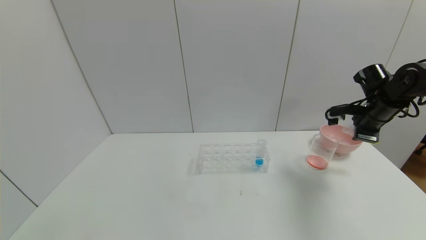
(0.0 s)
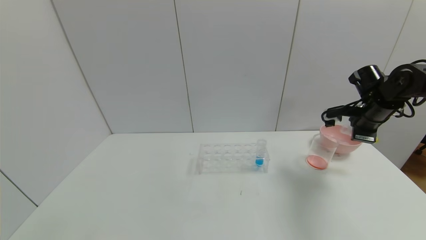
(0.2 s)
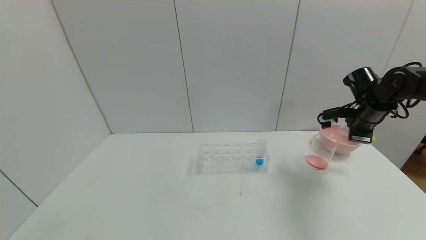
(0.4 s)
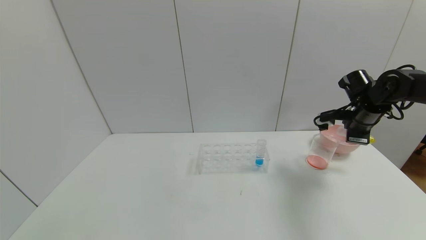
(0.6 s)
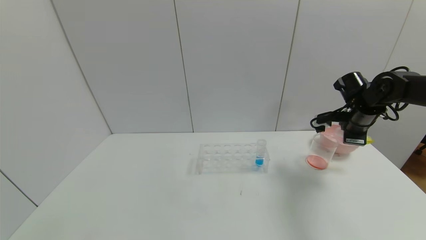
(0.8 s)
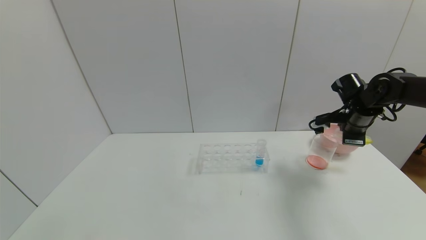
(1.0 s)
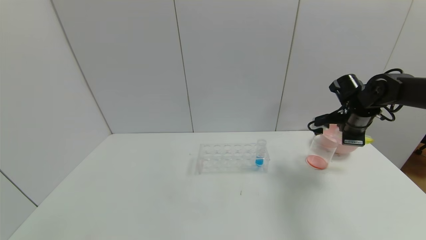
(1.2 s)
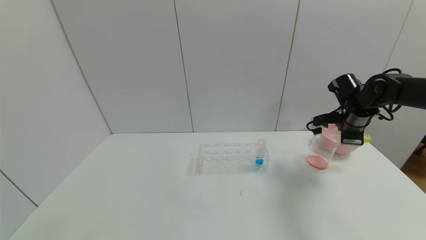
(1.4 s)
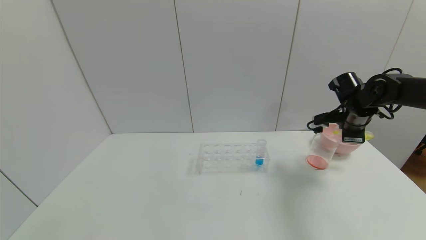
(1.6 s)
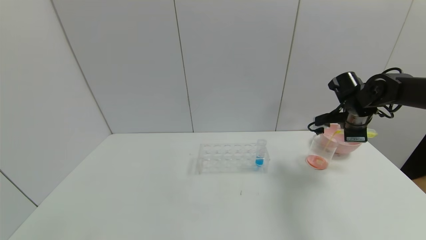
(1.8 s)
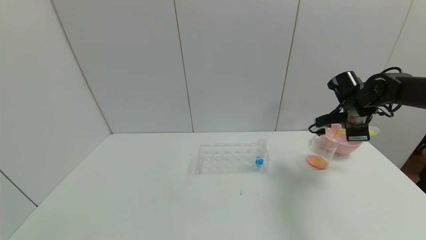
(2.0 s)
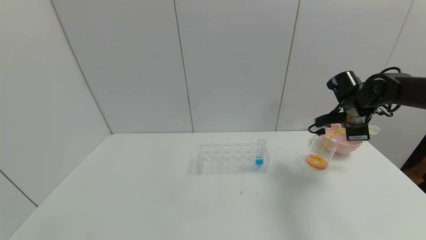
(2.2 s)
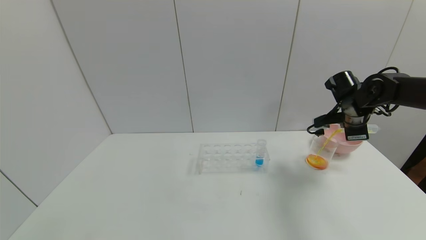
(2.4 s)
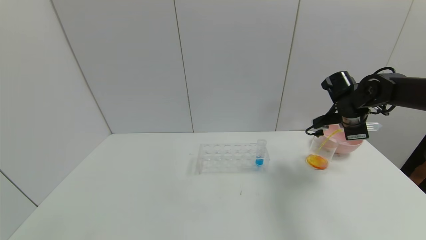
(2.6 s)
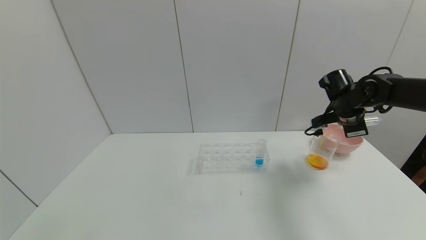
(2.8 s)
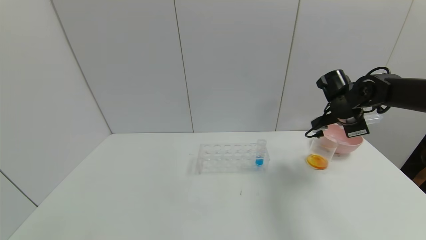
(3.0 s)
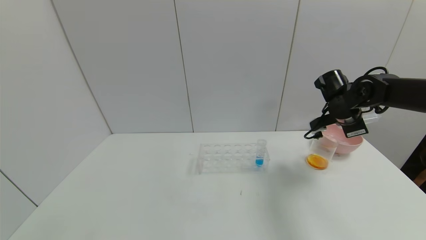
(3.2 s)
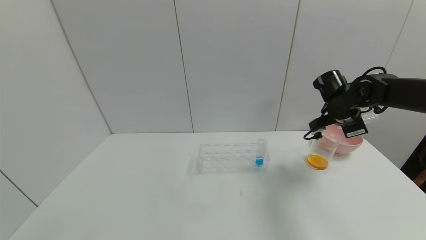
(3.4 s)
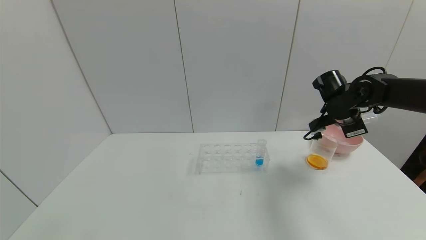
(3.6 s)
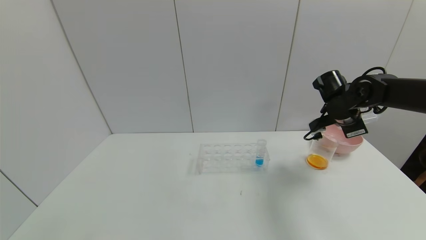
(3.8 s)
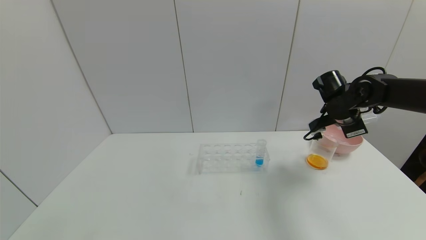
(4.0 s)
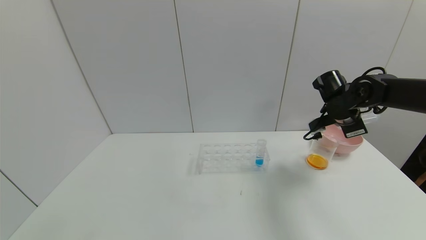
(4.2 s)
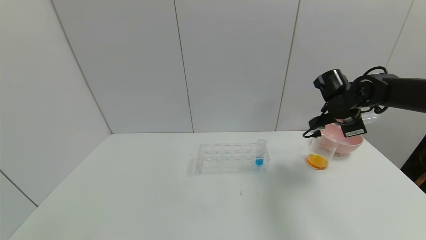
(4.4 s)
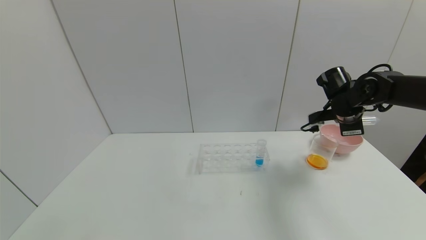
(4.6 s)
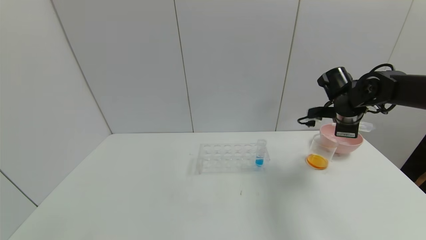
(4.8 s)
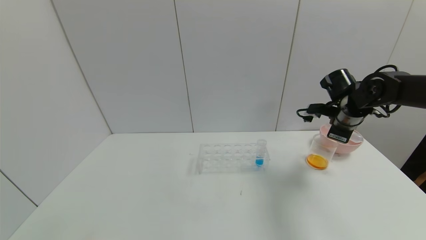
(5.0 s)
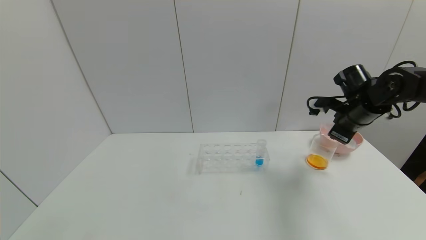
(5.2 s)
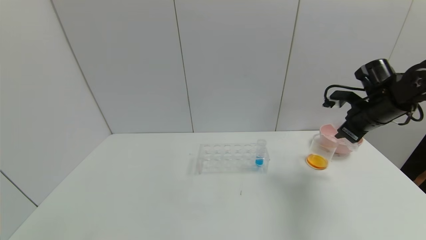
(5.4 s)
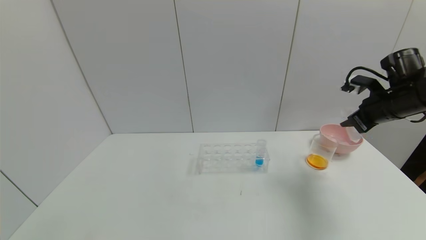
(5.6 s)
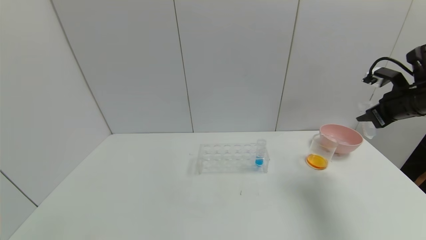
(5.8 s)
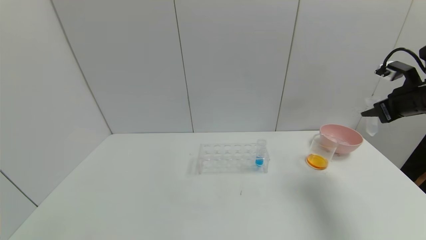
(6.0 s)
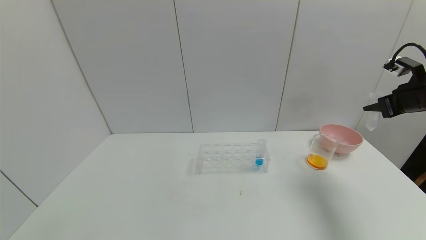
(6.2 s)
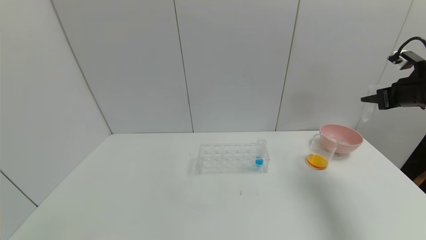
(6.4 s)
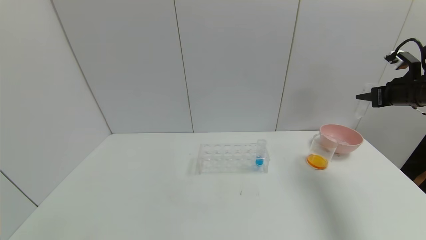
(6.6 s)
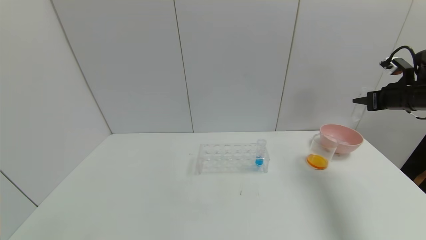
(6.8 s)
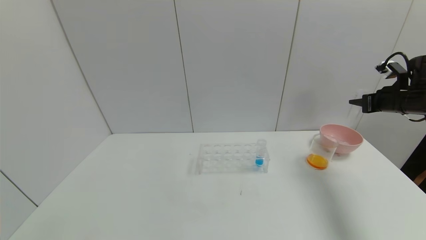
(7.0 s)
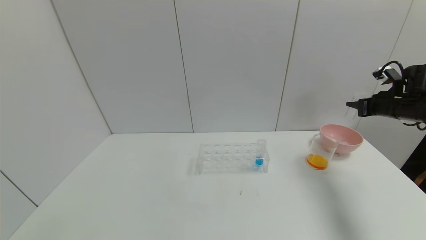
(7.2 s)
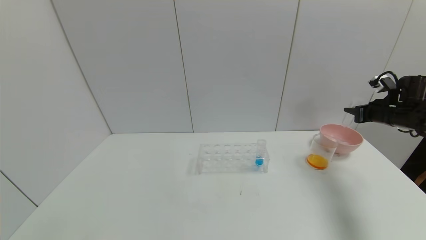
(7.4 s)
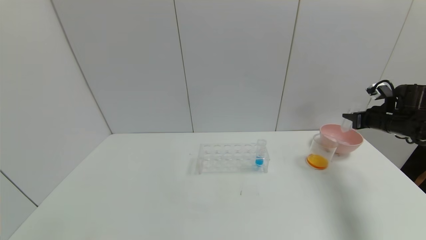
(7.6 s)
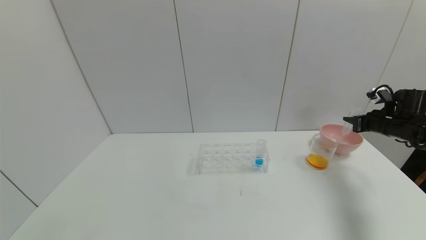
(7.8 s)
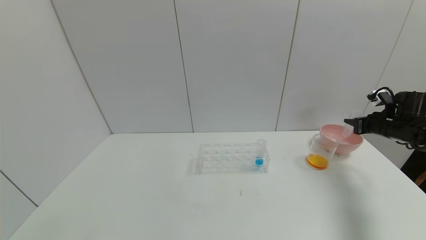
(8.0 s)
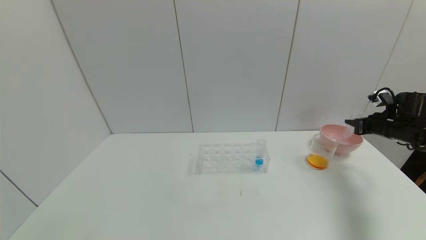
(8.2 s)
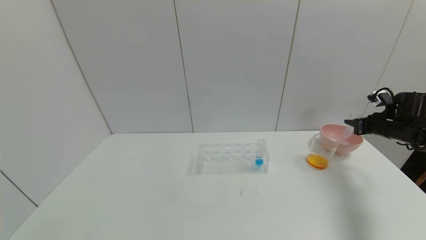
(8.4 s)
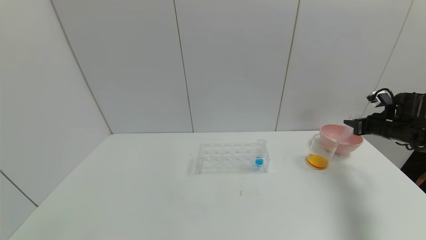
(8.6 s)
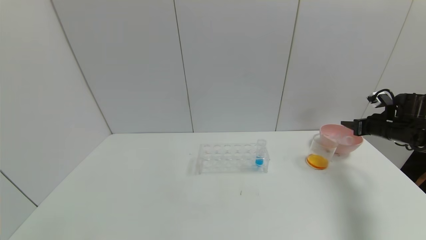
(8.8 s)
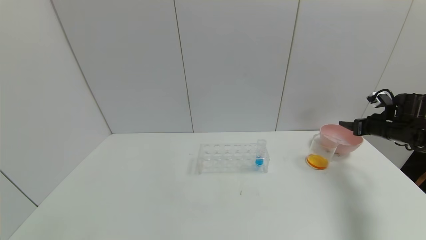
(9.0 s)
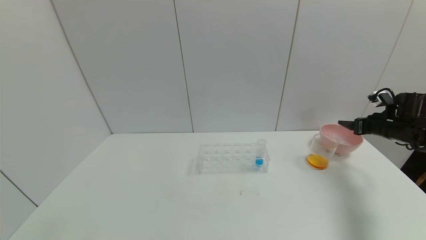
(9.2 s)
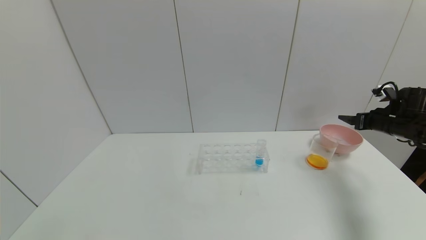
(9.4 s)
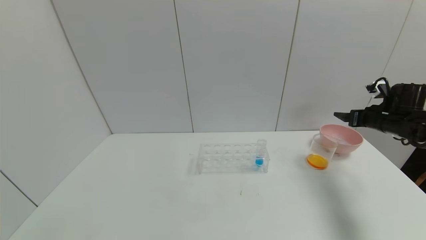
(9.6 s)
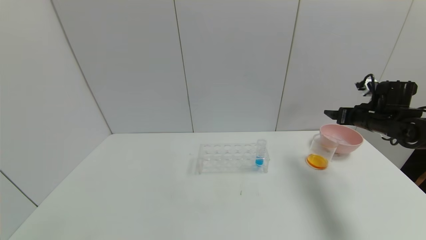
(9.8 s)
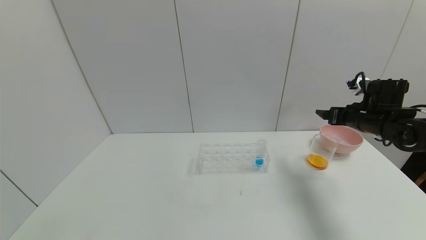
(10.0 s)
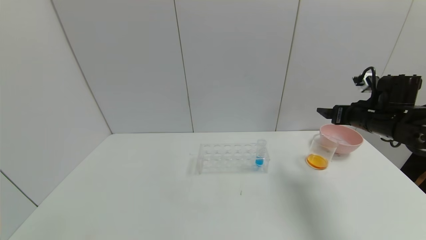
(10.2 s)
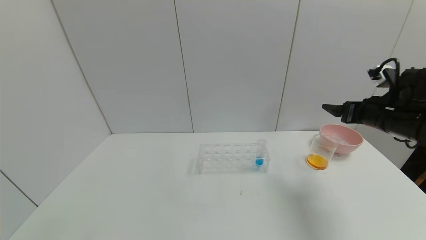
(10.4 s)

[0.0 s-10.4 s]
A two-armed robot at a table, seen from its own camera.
Task of the whole recording: pick up the test tube with yellow pigment and the test tube with red pigment by grippers and pour them into the beaker.
Step, 0.0 to 6.6 s: Pour the yellow reagent into the graduated cylinder with right gripper.
0.0 to 1.4 s: The grippers make only small movements.
3.0 to 4.4 s: Both grippers stay put.
4.4 to 6.0 s: The right gripper is displaced to the right, backward and upward by some 15 cm.
6.0 to 7.4 s: The right gripper shifts about 10 cm downward and forward.
7.4 to 9.0 s: The right gripper opens up.
9.0 to 10.4 s: The right gripper heads to the left, backward and upward, covering about 15 cm, and opens up.

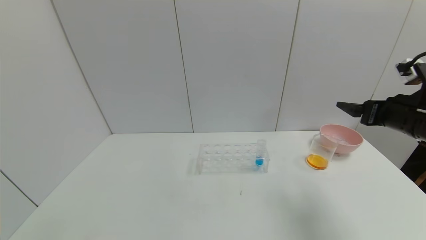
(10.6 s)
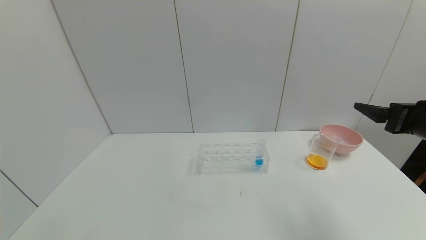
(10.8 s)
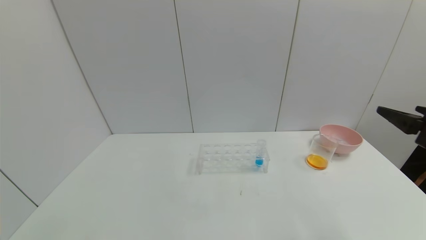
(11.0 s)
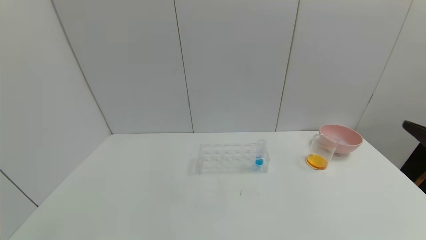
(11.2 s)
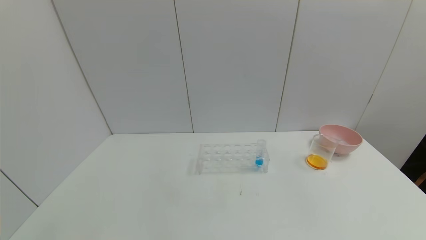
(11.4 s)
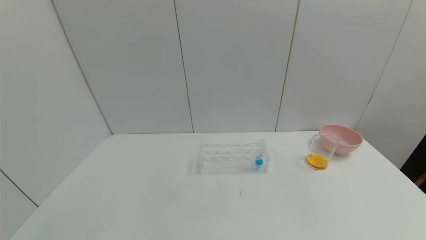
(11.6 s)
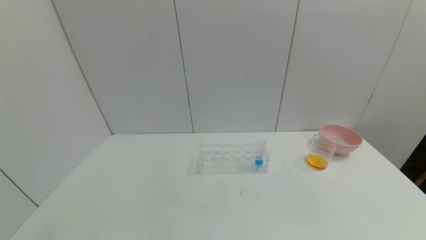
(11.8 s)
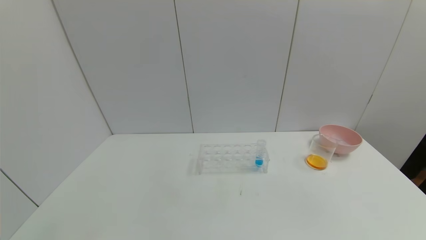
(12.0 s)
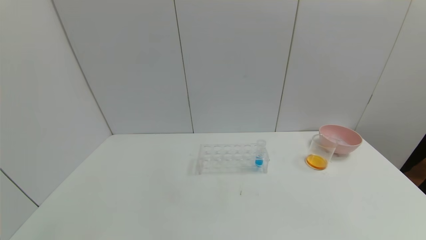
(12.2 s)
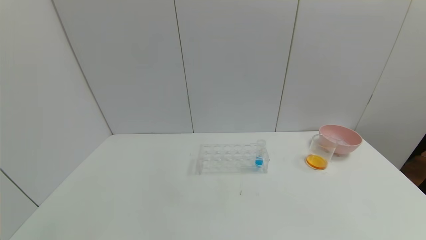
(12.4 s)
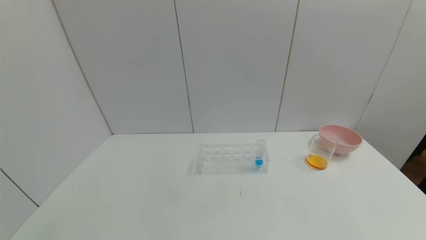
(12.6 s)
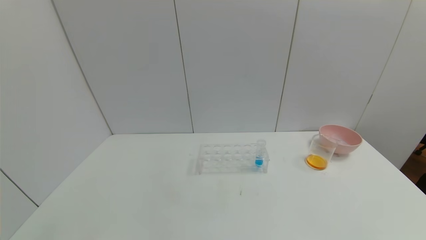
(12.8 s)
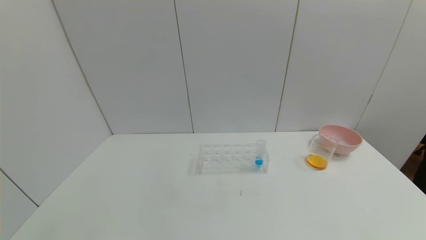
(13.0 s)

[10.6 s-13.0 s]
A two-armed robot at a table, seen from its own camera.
Task of the whole recording: pick up the test tube with yellow pigment and the test tube with red pigment by grippers and pour them into the beaker.
10.6 to 11.8 s: The right gripper travels backward by about 30 cm.

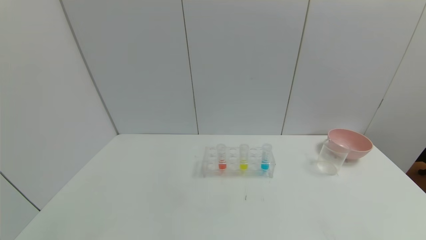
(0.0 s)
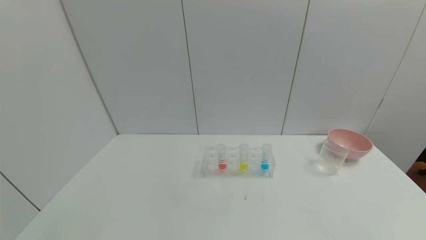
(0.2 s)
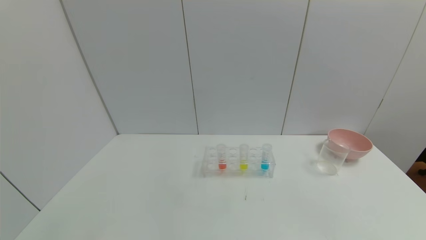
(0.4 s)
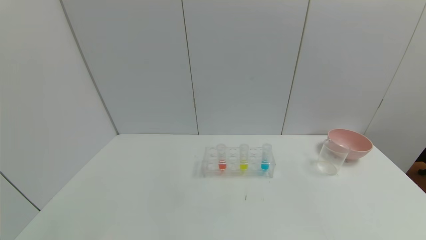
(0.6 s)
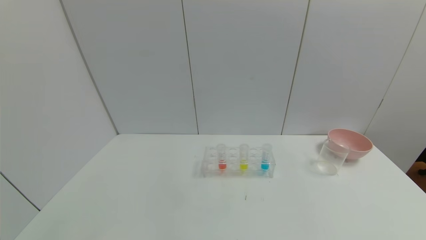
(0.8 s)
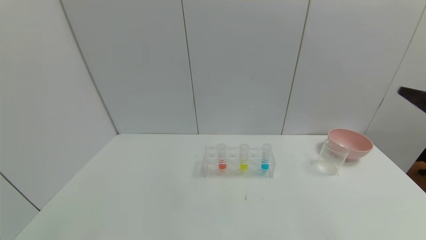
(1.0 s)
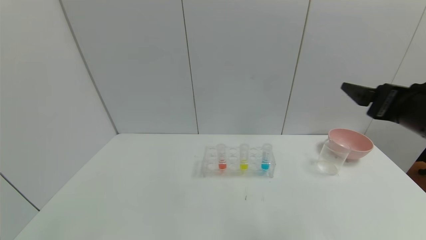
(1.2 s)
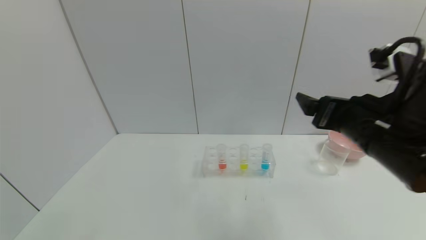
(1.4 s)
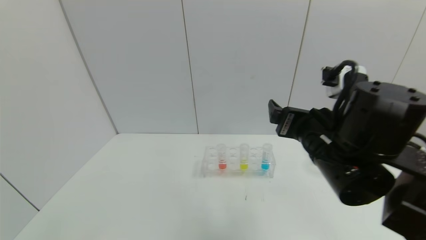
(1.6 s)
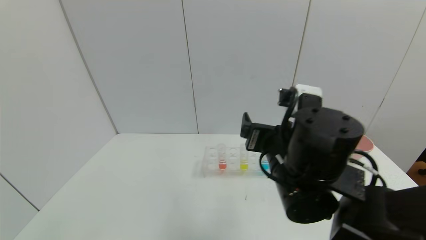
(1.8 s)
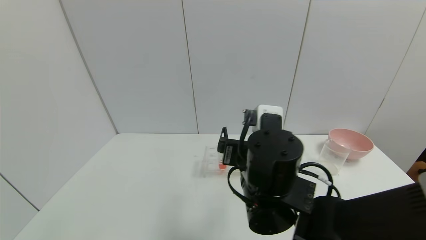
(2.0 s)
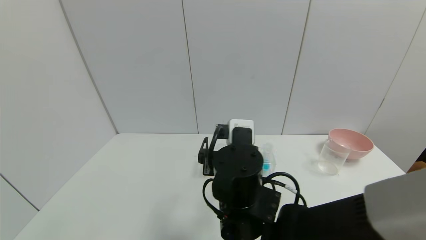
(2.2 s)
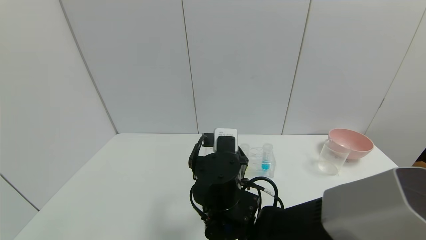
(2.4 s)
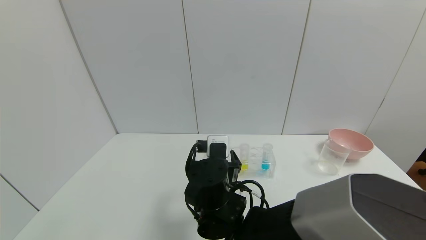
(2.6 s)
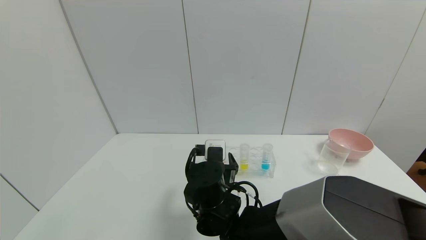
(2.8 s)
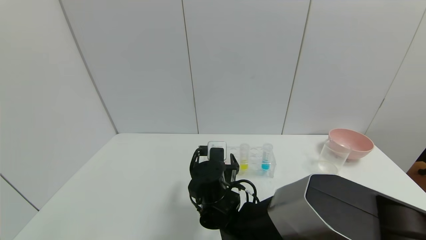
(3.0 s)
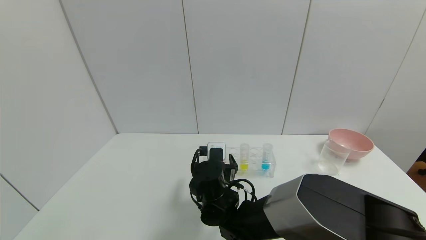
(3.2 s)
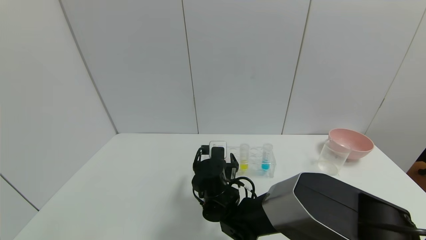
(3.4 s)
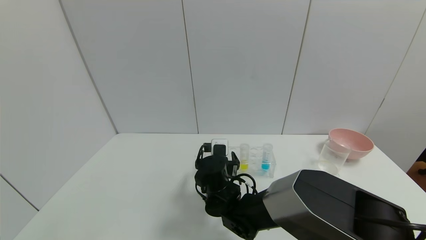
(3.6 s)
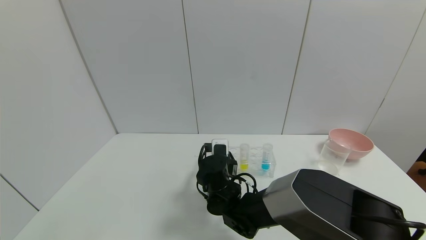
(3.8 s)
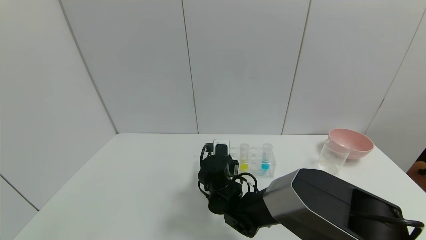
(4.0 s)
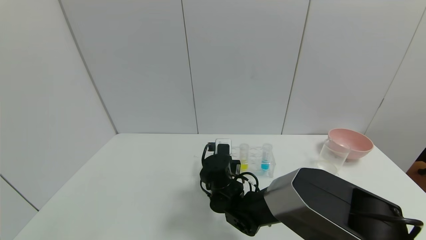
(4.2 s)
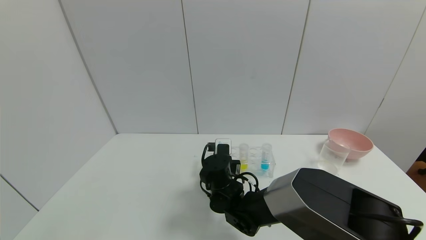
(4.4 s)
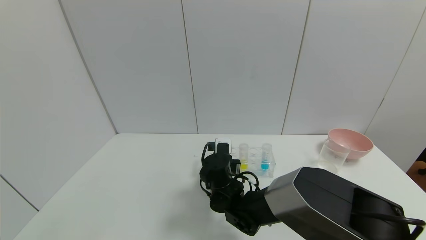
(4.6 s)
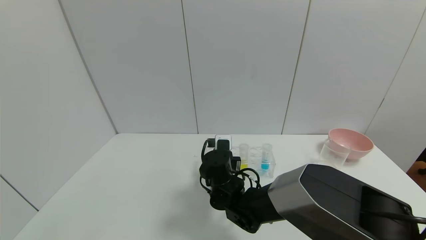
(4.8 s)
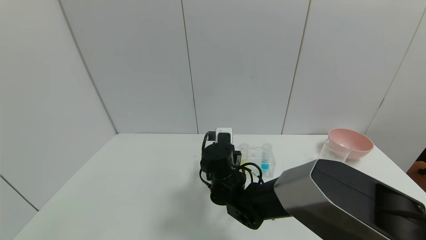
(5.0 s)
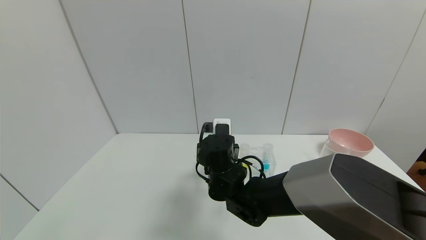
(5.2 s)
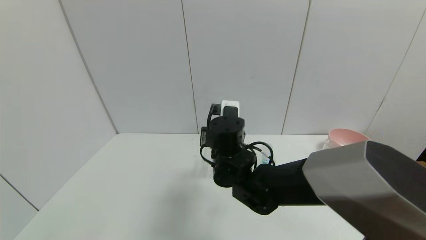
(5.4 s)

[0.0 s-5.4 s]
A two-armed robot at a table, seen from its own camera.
Task of the whole recording: pick up the test tube with yellow pigment and the test tube with red pigment by grippers and pour them into the beaker.
Step, 0.0 to 4.6 s: Grasp the red reagent with the right gripper.
0.0 to 1.4 s: The right gripper moves forward, upward and to the left, some 35 cm.
1.4 to 2.8 s: The right gripper shifts approximately 30 cm to the left and downward.
2.8 to 4.0 s: The right gripper heads forward, covering roughly 5 cm, and closes up.
4.0 to 5.4 s: The right gripper heads upward, covering about 10 cm.
